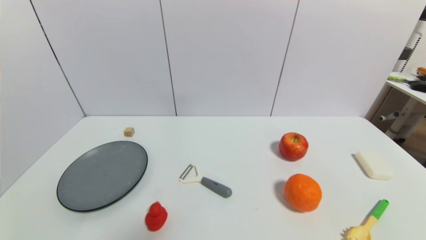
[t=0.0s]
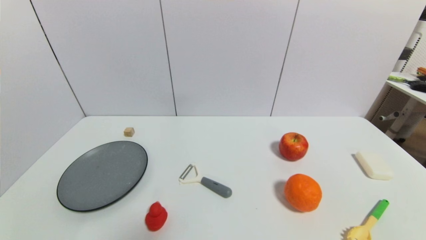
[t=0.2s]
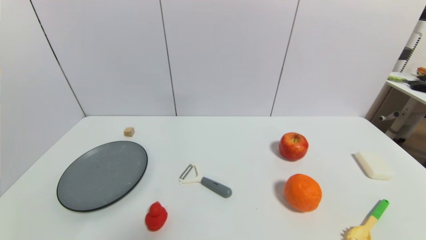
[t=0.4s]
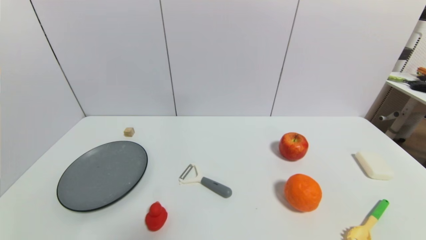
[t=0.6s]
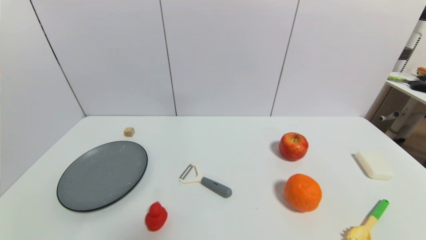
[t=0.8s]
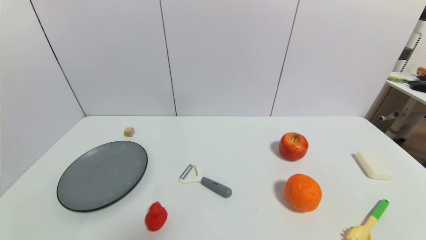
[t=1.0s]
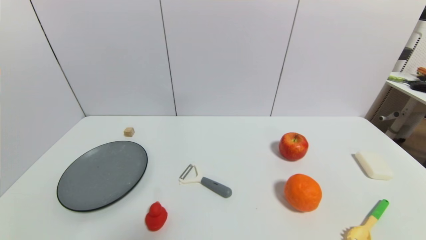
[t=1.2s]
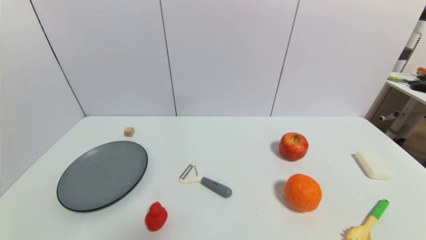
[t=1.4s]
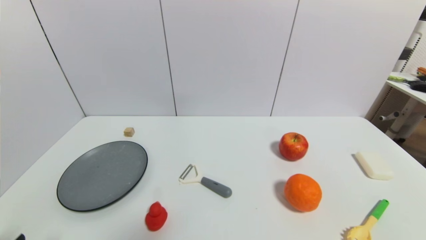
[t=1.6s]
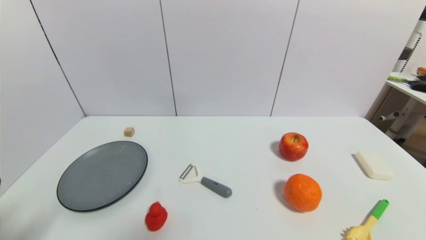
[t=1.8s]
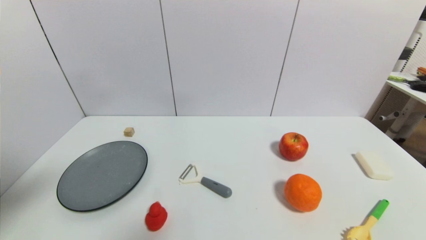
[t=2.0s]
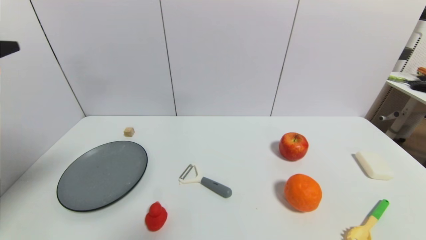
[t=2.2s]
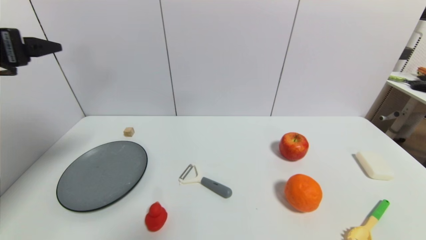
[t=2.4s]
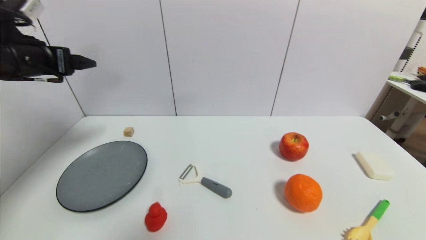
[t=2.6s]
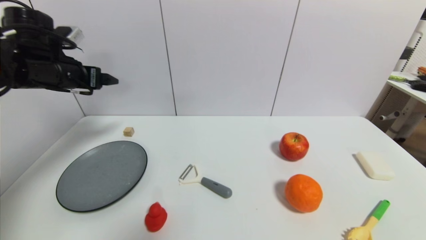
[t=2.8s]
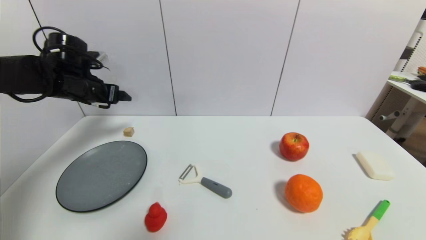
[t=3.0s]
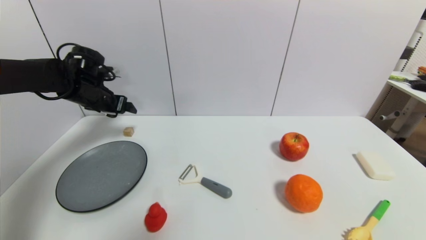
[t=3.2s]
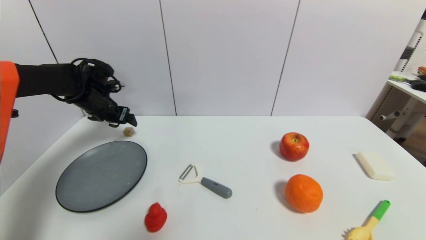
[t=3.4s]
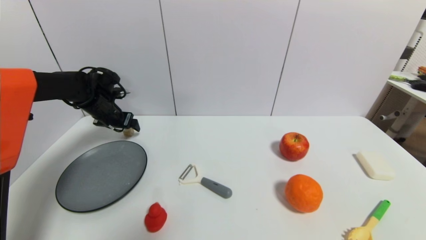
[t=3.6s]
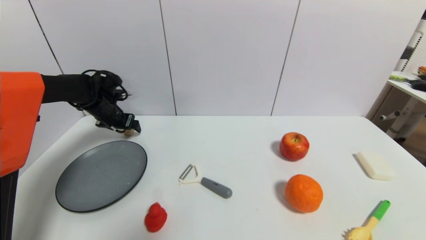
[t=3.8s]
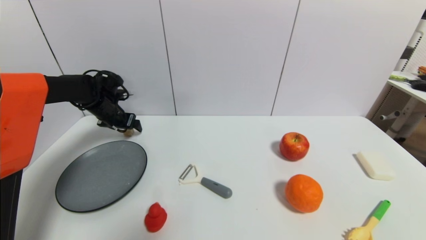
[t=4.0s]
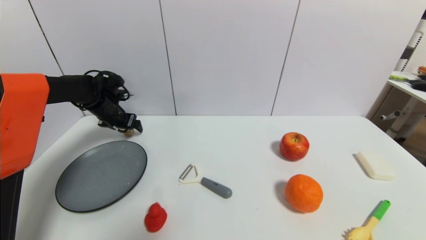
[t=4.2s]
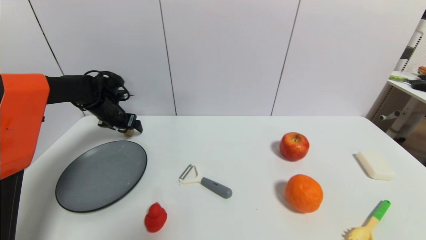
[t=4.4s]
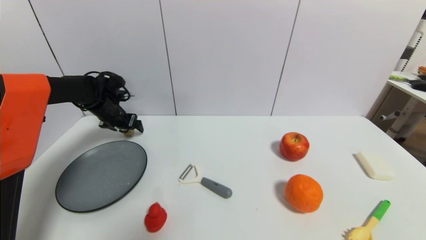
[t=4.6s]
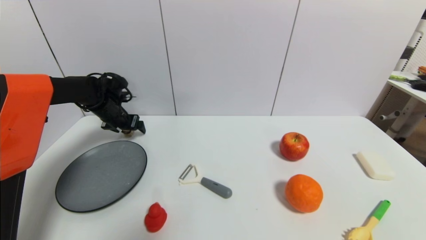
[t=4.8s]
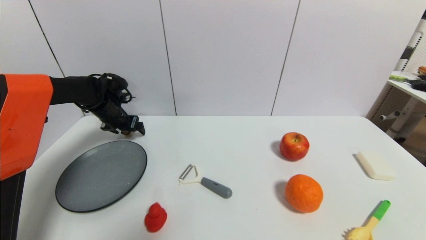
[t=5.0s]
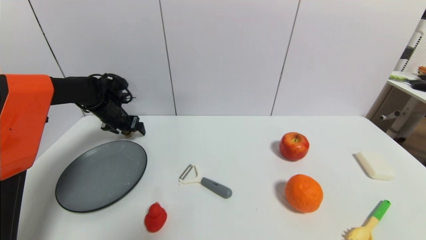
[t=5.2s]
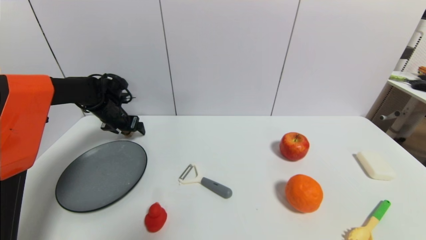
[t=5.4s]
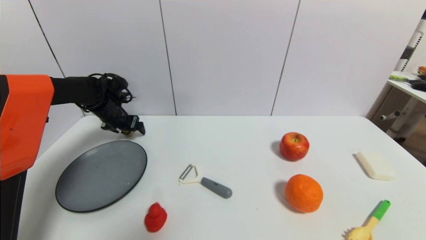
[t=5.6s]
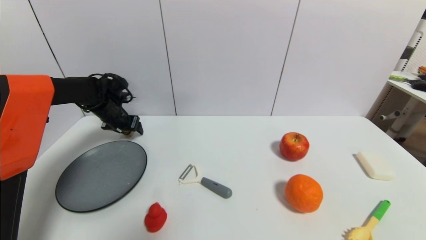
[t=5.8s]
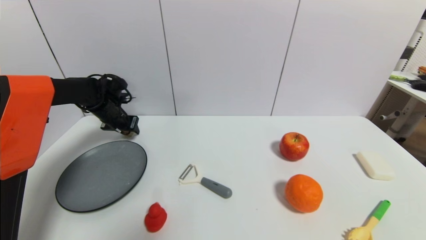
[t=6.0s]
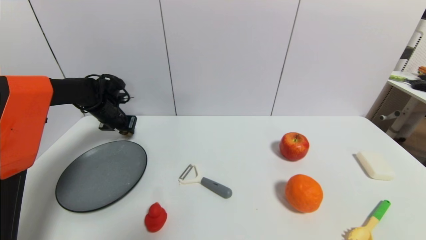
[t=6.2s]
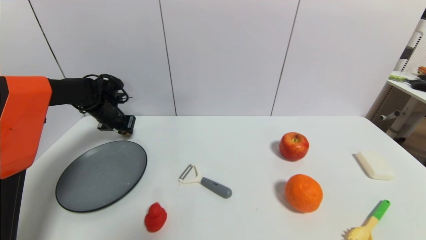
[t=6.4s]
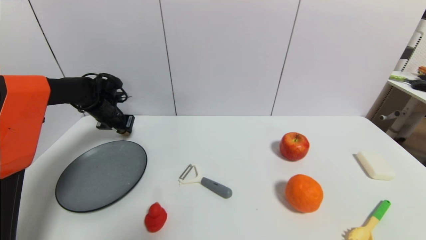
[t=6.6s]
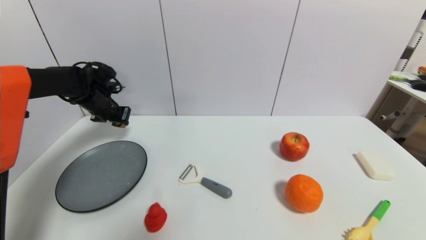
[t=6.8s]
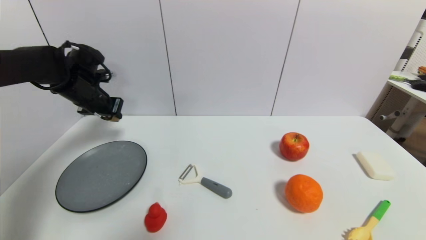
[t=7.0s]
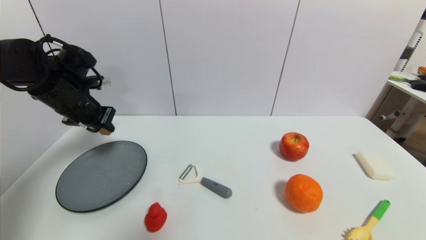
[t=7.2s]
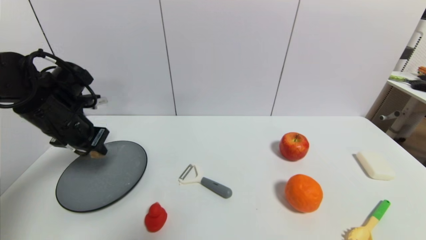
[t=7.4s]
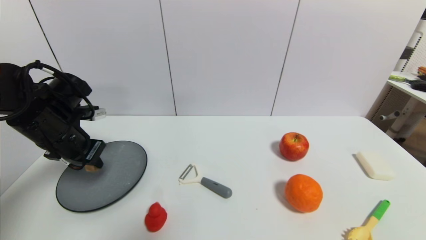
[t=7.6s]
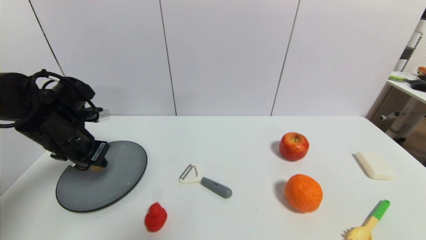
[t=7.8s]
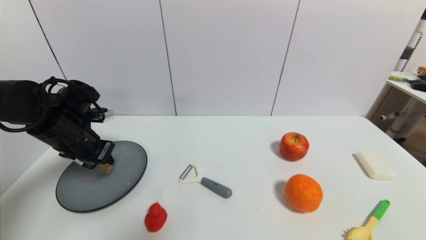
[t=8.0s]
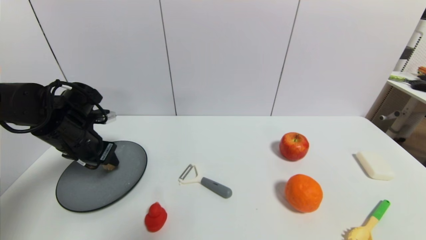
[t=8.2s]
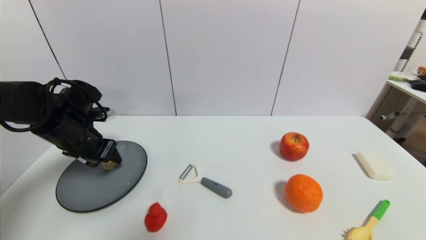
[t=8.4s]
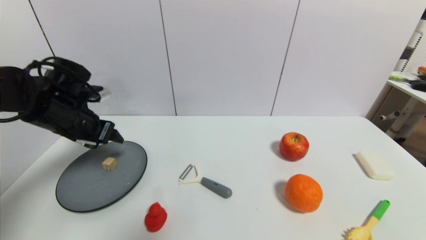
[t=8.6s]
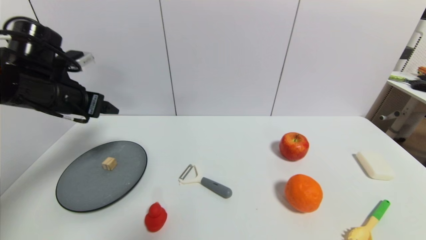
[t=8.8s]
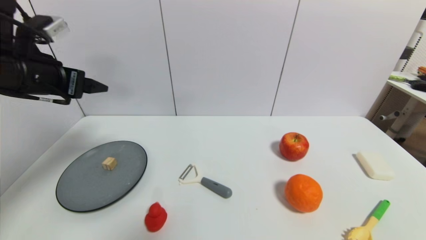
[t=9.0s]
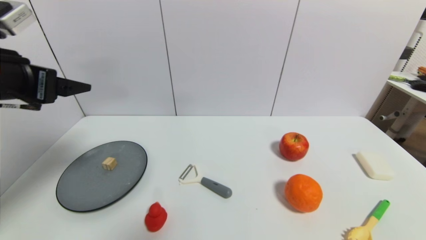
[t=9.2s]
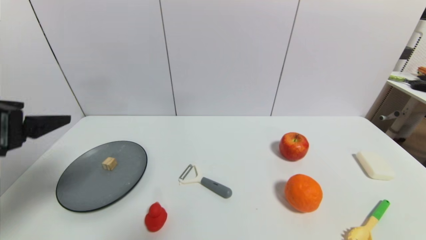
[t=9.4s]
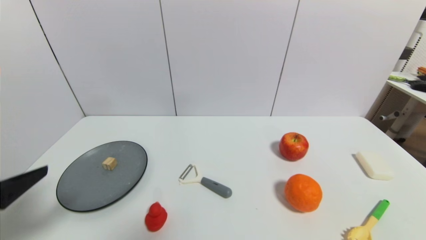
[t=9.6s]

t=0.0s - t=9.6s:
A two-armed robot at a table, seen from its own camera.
Task of the whole recording: use a gripper to pick the target object and place on the gray plate.
Step, t=0.0s - t=6.4s: Grasp the square wooden block with the left gripper.
Step, t=6.6s - t=8.6s: Place the square wooden block on the gray plate with the left gripper.
t=1.6s - t=3.2s: The left gripper moves forward, roughly 40 cm.
t=3.2s - t=4.8s: The left gripper goes about 5 cm downward.
t=4.8s - t=6.4s: The left gripper closes up.
t=6.4s - t=8.0s: The left gripper goes some 15 cm backward.
t=8.0s - t=9.6s: The left gripper heads backward, covering roughly 25 cm, and opens up.

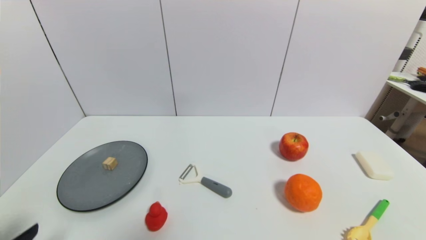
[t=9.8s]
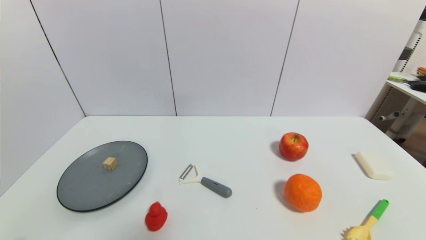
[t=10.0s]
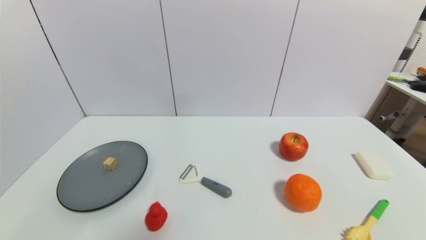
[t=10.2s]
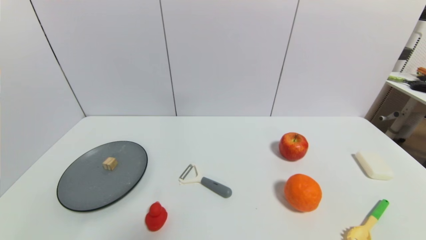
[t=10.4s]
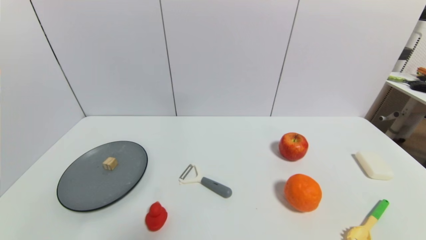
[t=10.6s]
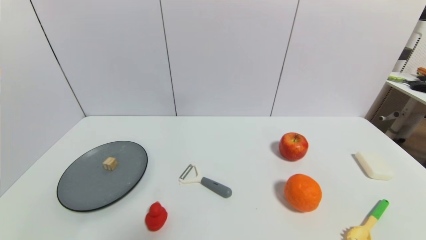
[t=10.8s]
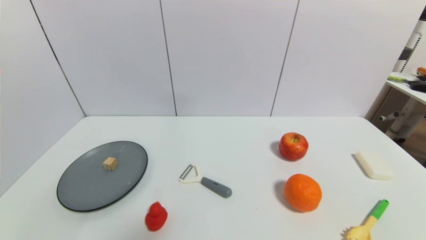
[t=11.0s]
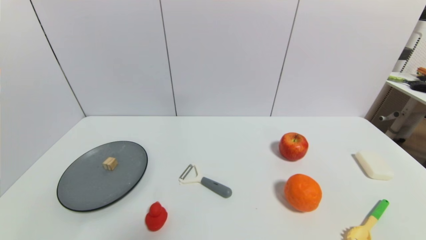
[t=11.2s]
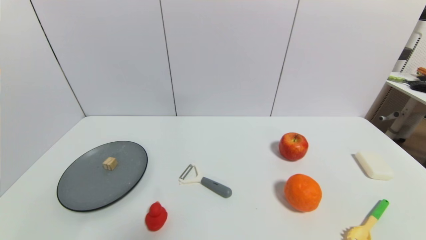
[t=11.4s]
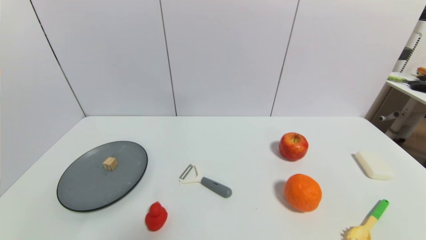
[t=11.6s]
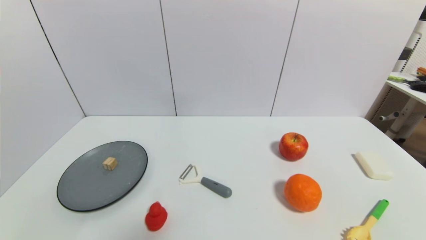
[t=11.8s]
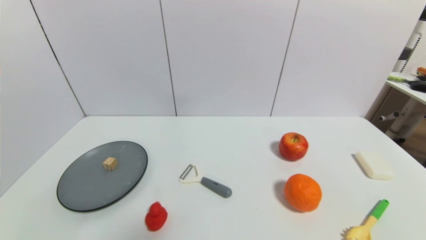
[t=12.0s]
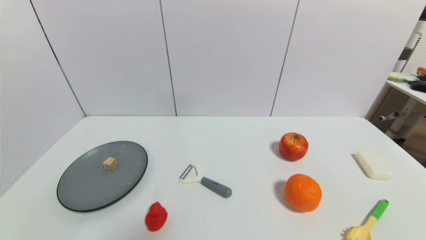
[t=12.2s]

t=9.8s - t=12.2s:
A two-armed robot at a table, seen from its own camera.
Task of the whole recording: use a gripper to pick the target object and place on the gray plate.
t=9.8s - t=11.0s: The left gripper travels downward by roughly 10 cm.
t=11.0s - t=12.2s: The two grippers keep their place.

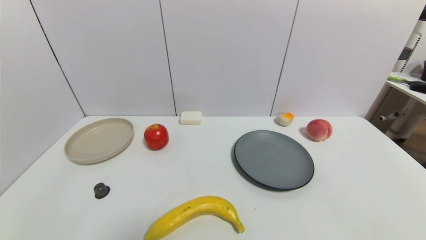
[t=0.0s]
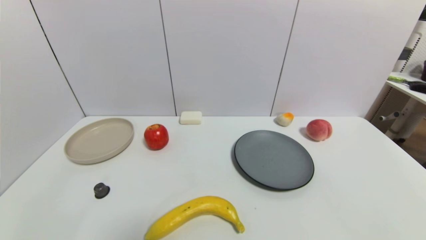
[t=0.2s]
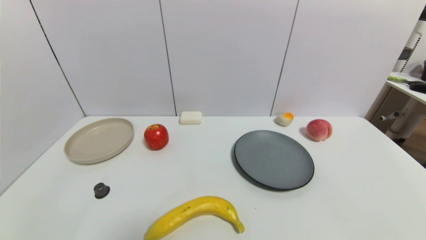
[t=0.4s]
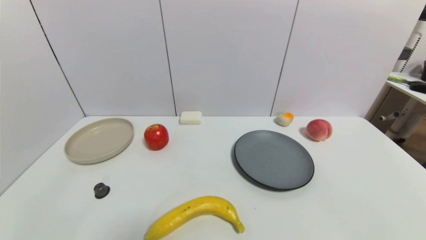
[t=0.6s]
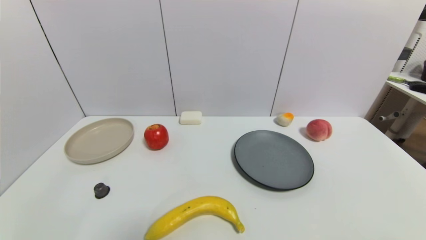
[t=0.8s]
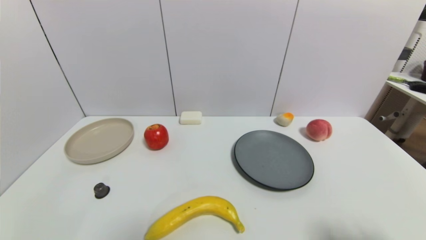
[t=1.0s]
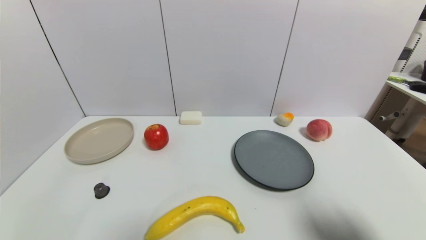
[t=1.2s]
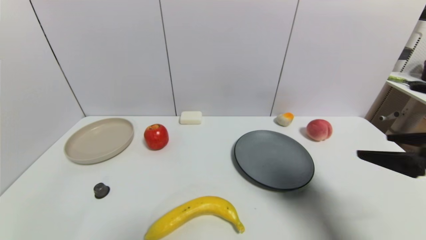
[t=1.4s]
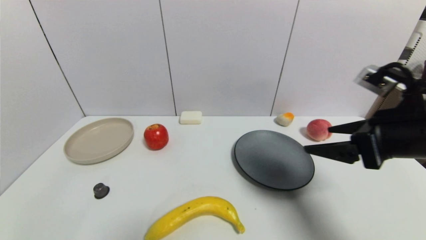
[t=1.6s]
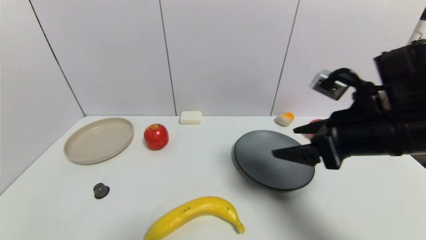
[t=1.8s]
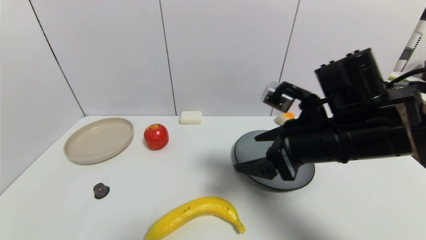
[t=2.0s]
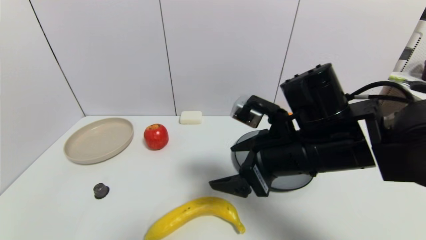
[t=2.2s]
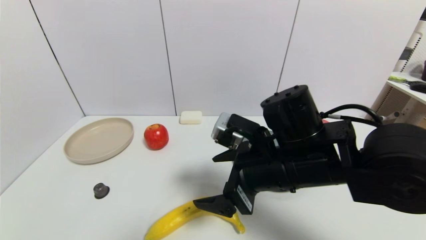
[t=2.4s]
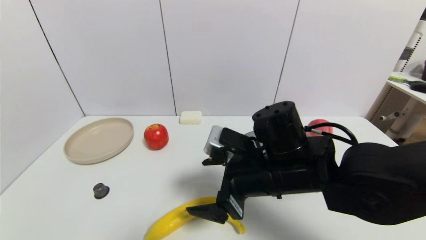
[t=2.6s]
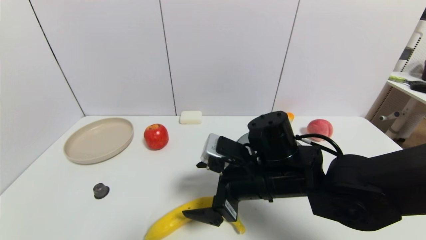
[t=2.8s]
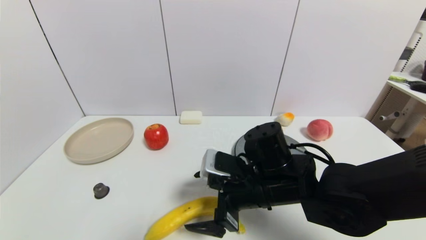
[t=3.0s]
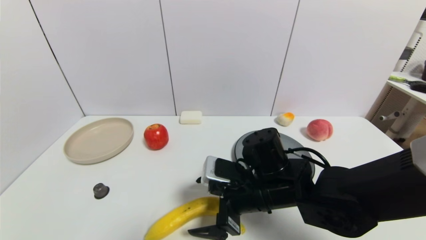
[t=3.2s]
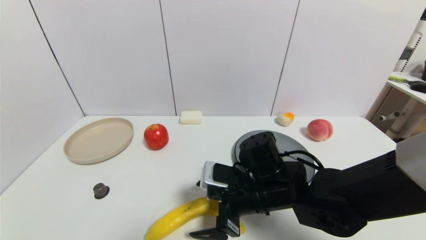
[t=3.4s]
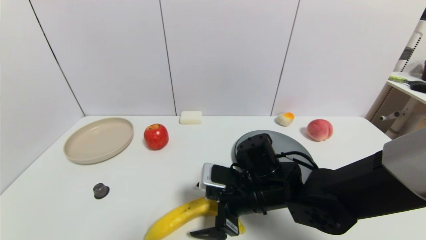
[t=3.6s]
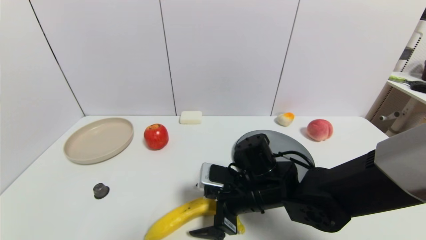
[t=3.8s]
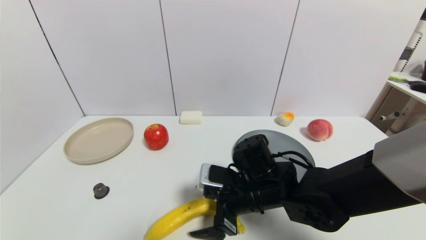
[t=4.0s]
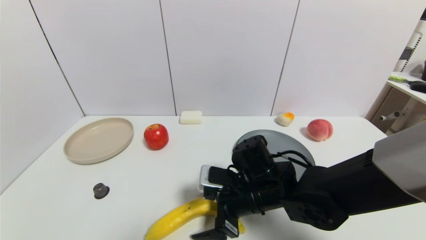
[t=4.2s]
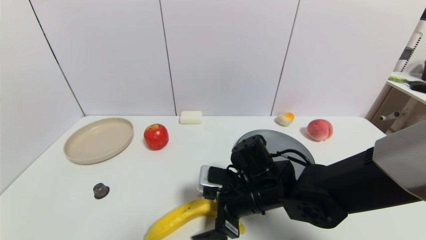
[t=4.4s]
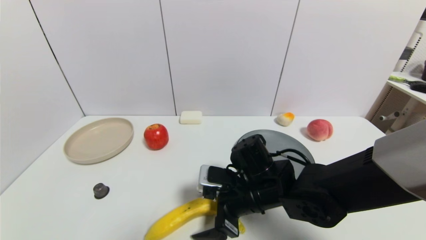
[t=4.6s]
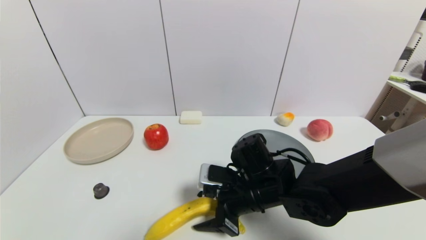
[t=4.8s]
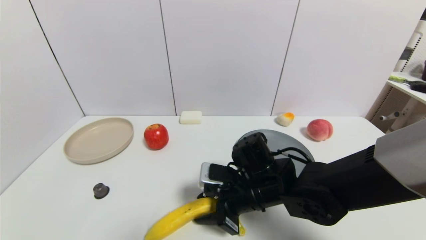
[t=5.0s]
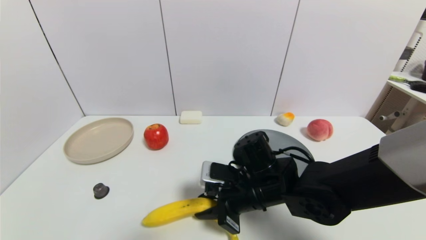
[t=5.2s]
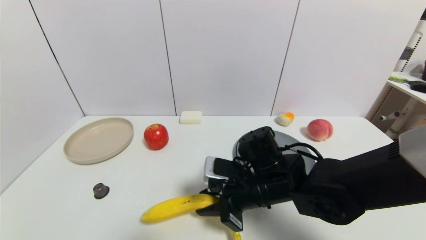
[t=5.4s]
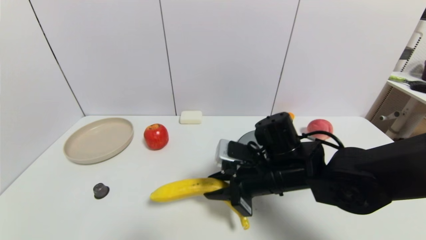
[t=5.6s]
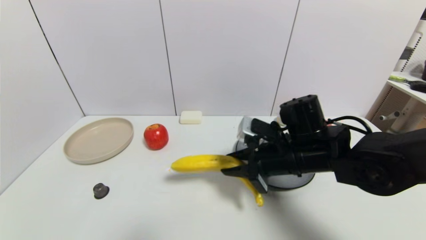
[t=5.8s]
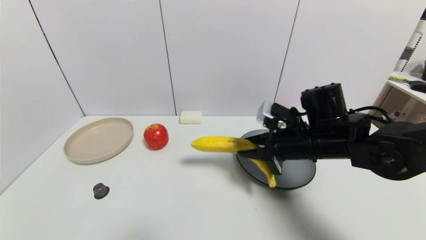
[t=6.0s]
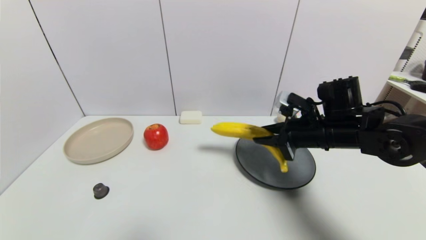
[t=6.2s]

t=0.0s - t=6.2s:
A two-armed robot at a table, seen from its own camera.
Task of the whole recording: use a gripper to pick the target object and place on the gray plate.
Step, t=0.0s - t=5.2s: Grasp the banana with the right gripper.
t=0.0s - t=1.6s: The right gripper goes some 30 cm forward and upward.
t=1.6s - t=3.2s: The right gripper heads to the left and downward, covering approximately 25 cm.
t=3.2s - t=4.6s: The grippers move only a little.
t=4.6s - t=6.2s: The right gripper travels to the right, upward and forward by about 20 cm, and closes.
